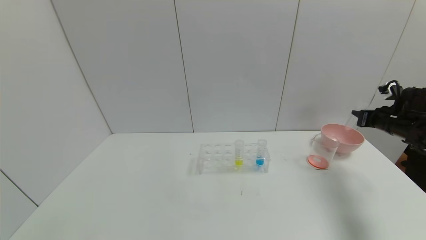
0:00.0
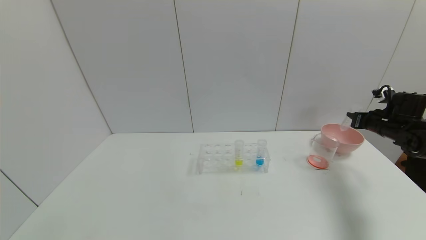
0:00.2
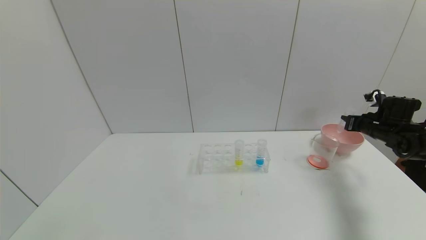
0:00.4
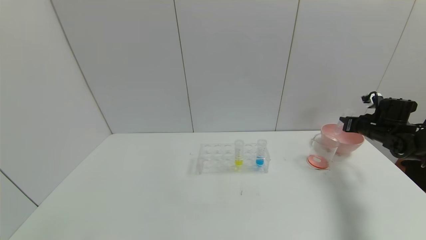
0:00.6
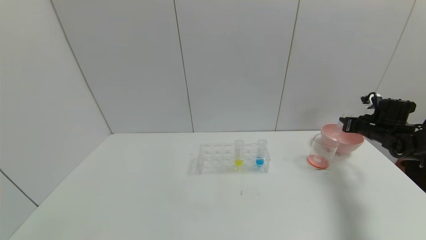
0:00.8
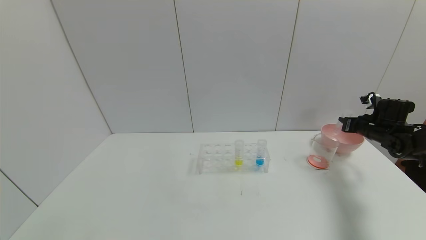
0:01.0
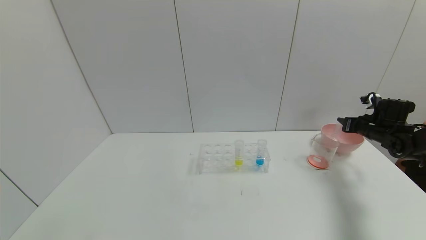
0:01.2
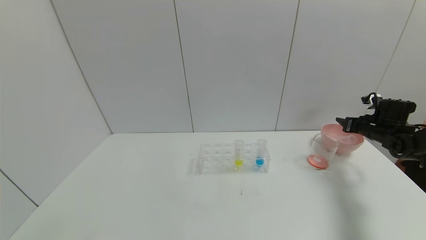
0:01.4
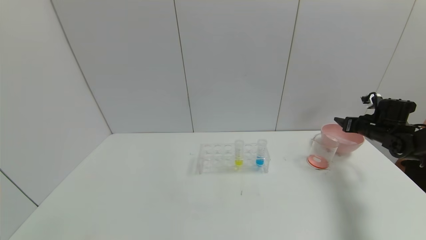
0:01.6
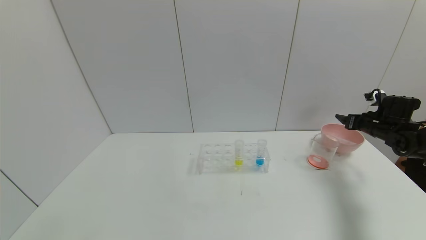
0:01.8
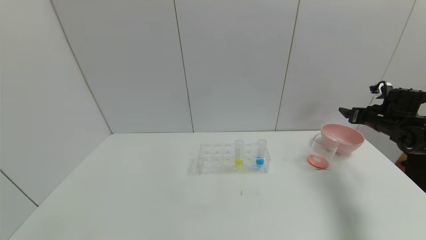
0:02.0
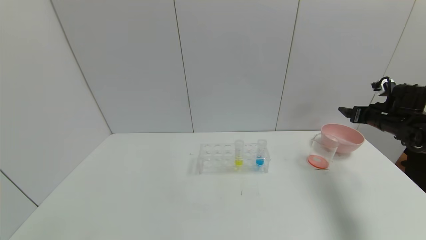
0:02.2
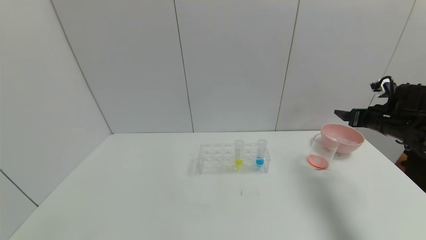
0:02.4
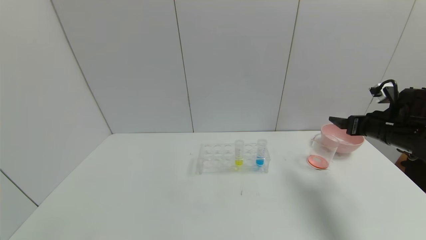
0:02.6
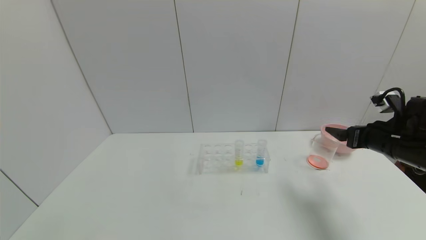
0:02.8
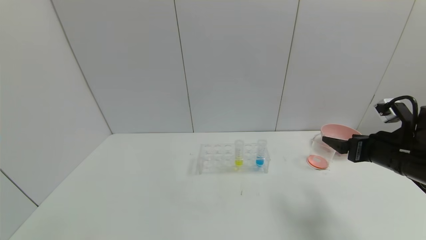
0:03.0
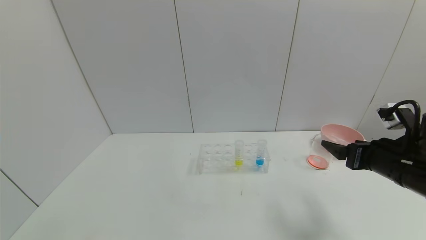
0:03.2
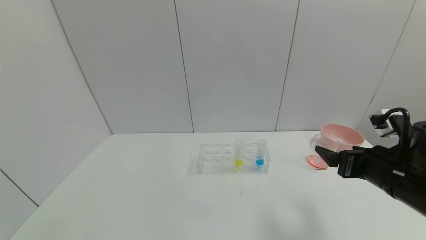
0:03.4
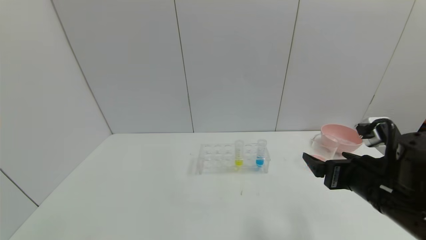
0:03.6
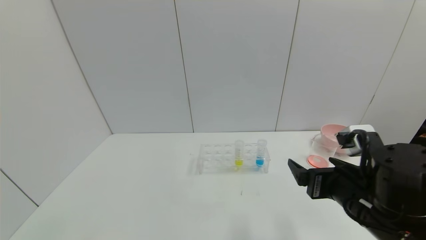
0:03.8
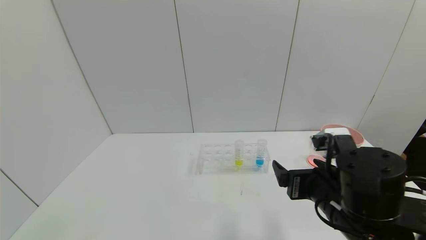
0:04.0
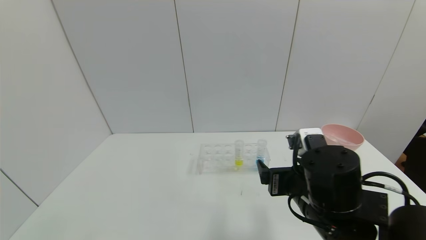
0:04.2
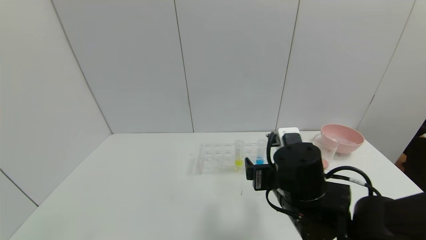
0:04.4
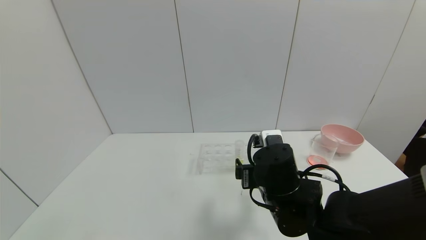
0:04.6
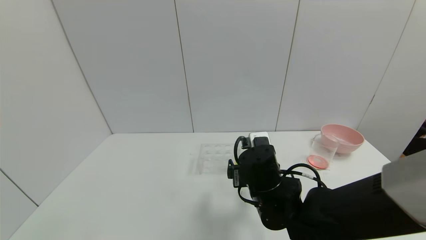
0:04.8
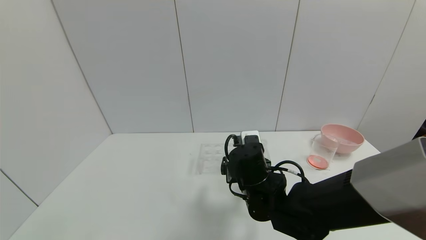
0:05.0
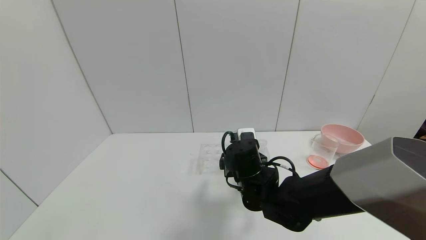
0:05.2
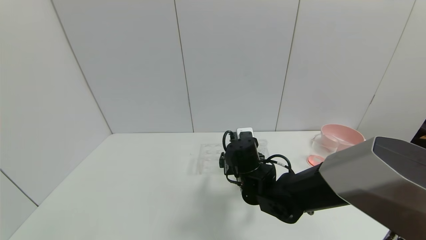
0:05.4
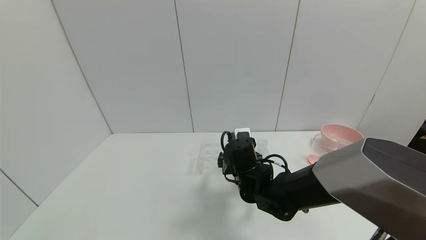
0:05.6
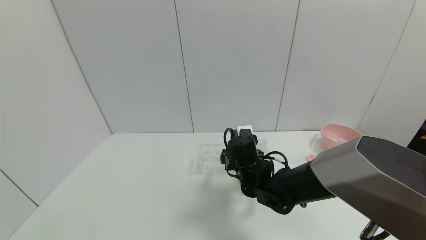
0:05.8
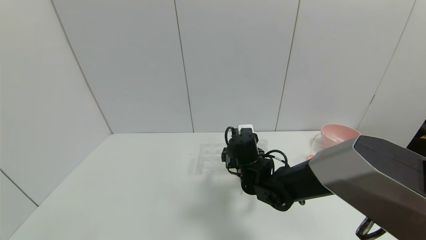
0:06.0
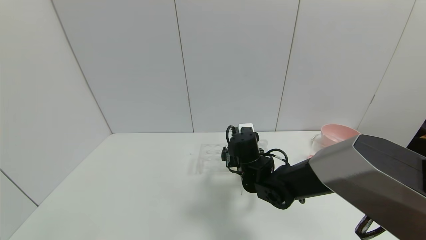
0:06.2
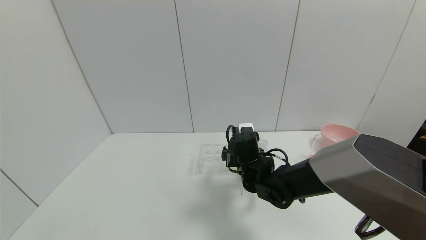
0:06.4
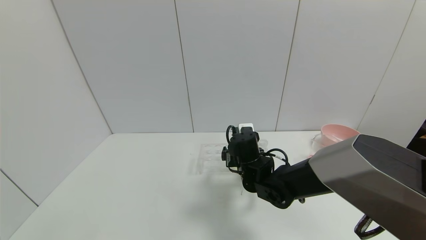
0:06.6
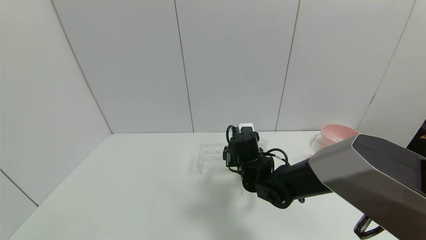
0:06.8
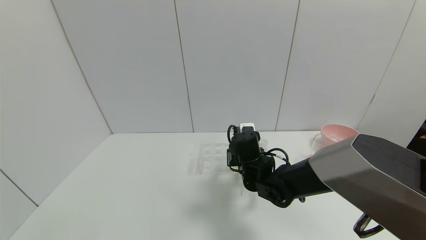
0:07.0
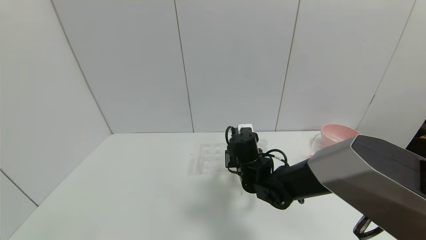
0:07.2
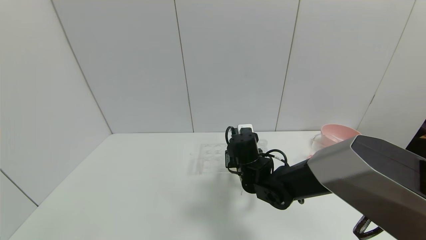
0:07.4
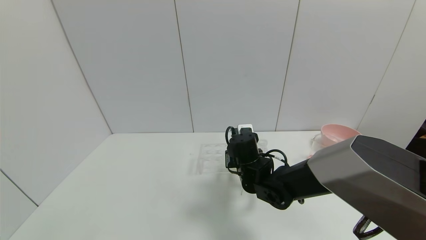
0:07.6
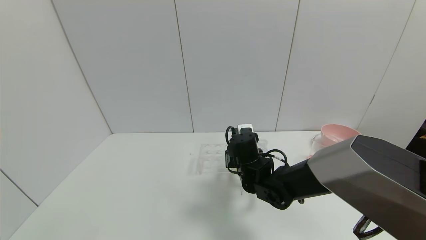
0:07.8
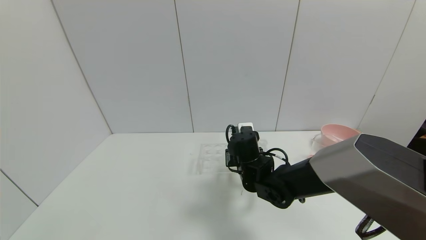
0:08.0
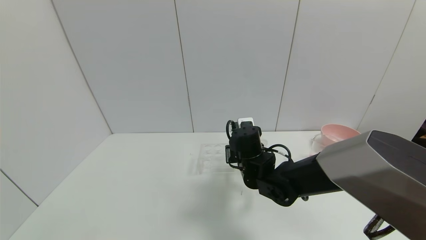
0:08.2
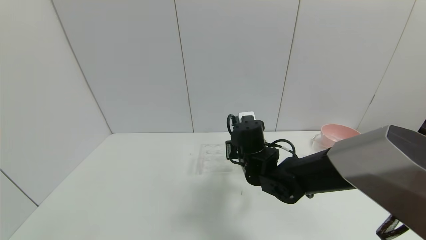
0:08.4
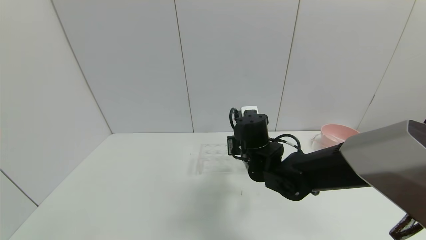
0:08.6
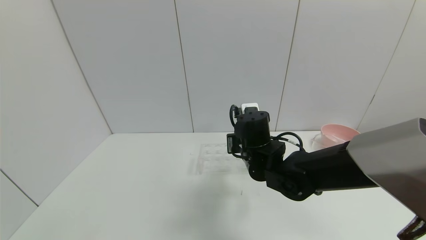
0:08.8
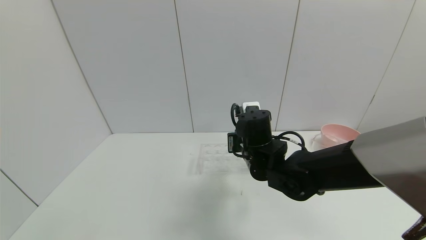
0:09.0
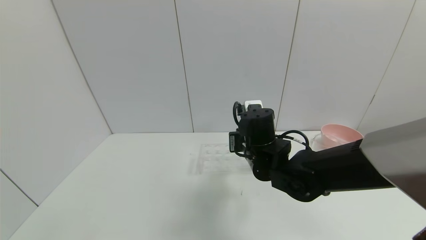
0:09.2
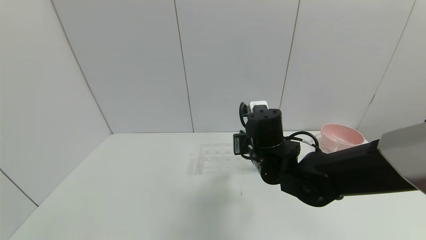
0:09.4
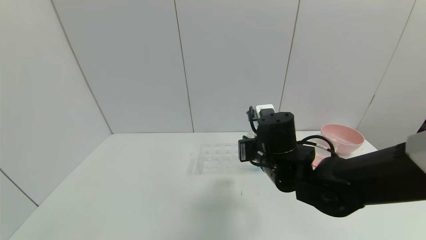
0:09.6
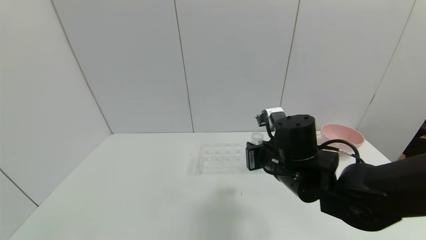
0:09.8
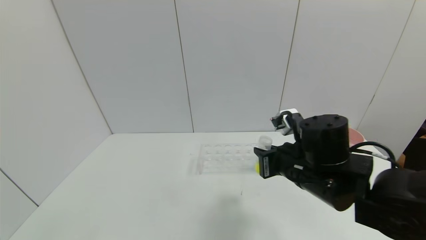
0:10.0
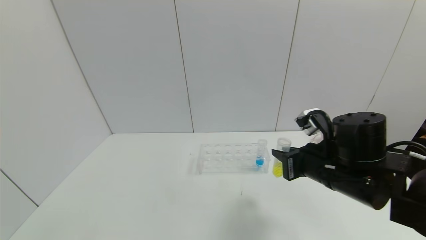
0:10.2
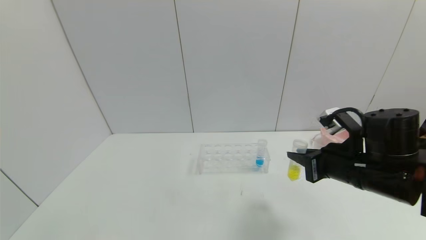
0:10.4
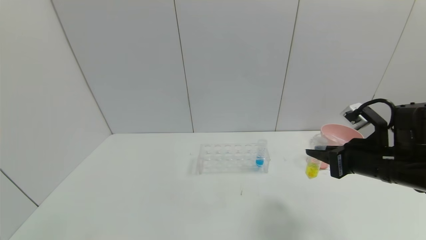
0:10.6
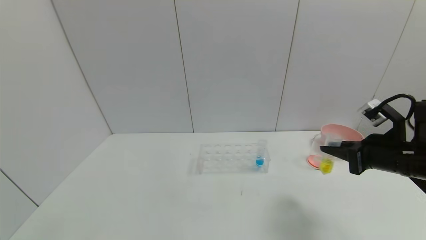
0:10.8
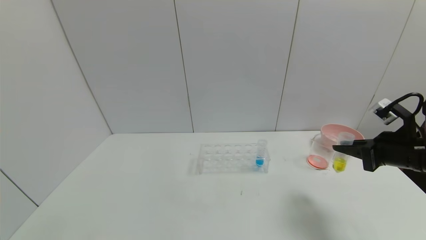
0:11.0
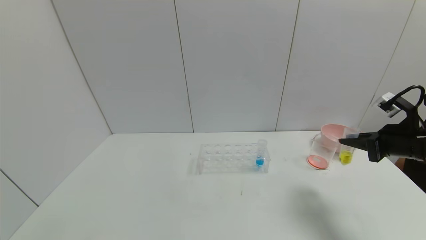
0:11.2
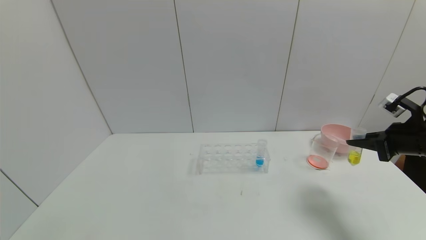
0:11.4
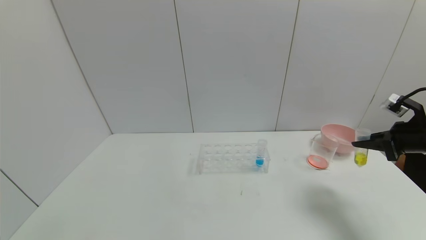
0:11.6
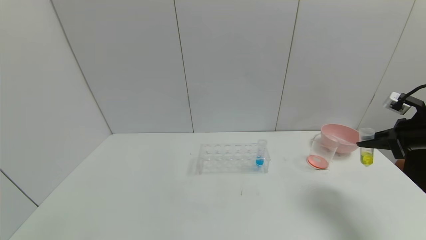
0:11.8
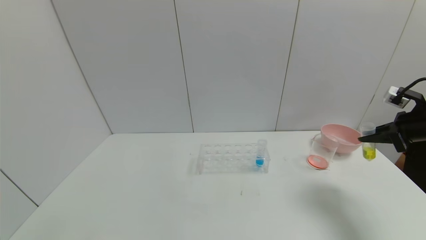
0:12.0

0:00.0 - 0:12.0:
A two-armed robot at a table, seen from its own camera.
Task of the whole recording: pick up the test tube with yellow pigment and the test tube with red pigment by grippers and pour them into the beaker.
Step, 0:01.8 - 0:07.2: Grasp the yellow reagent with the right gripper.
0:00.0 - 0:01.6: The right gripper moves about 5 cm, and opens.
0:01.6 - 0:03.0: The right gripper shifts about 25 cm backward and to the left.
0:03.0 - 0:04.4: The right gripper heads to the left, covering roughly 20 cm.
0:04.4 - 0:06.0: The right gripper is displaced forward, downward and to the left by roughly 15 cm.
0:06.0 - 0:07.6: The right gripper closes.
0:07.6 - 0:09.0: The right gripper heads upward, covering approximately 5 cm.
0:09.0 - 0:10.4: The right gripper is displaced to the right and backward by about 20 cm.
0:10.4 - 0:12.0: The right gripper heads to the right, covering about 20 cm.

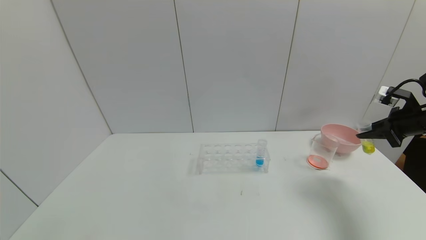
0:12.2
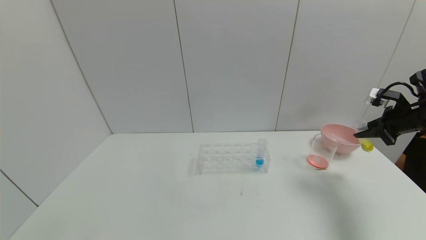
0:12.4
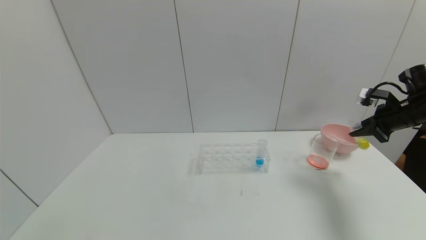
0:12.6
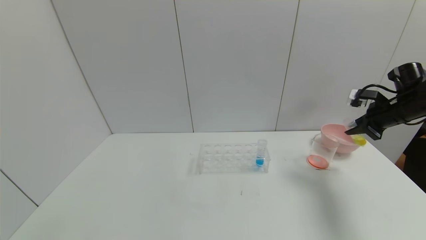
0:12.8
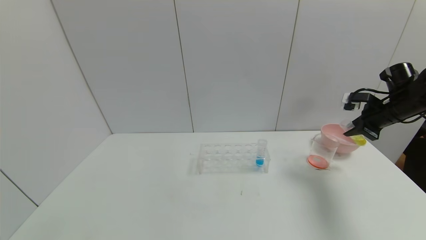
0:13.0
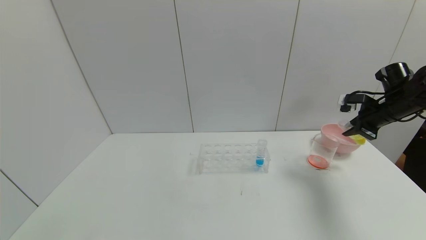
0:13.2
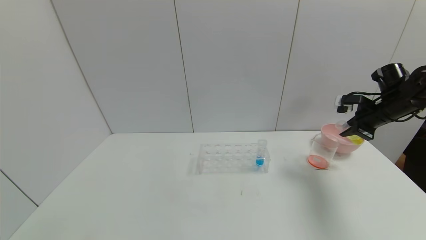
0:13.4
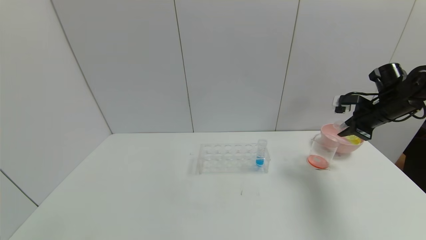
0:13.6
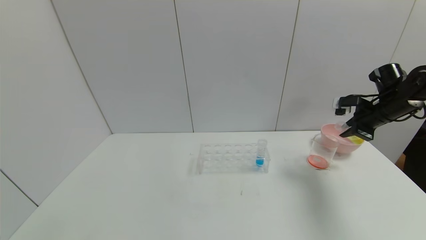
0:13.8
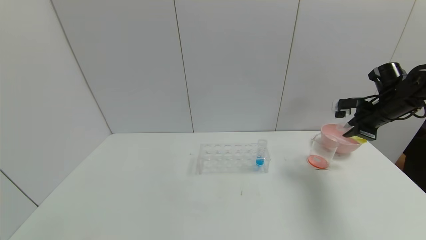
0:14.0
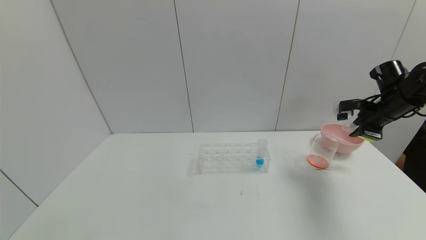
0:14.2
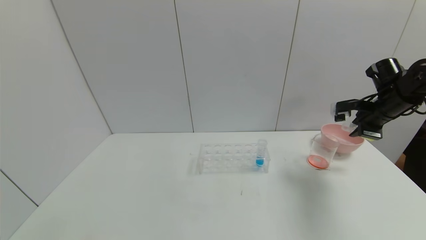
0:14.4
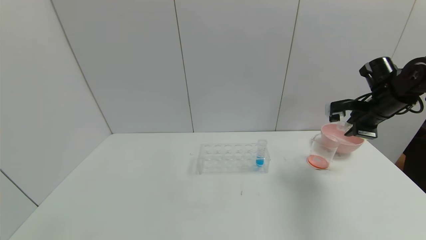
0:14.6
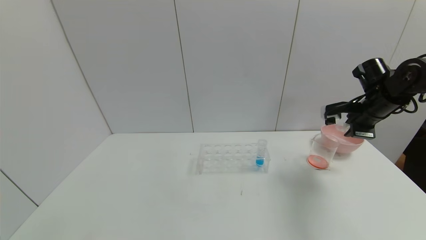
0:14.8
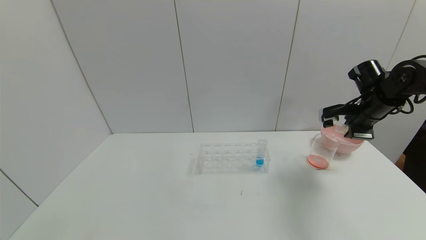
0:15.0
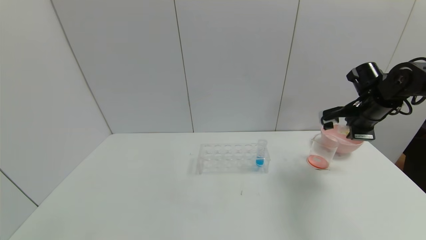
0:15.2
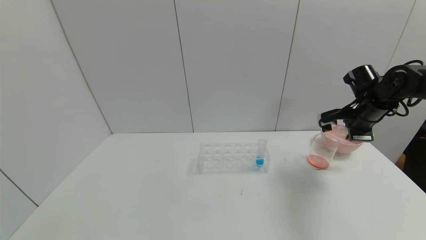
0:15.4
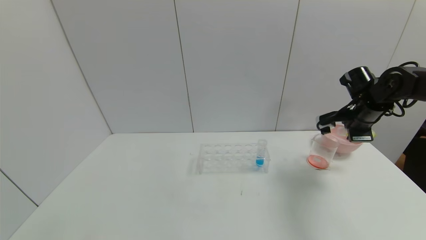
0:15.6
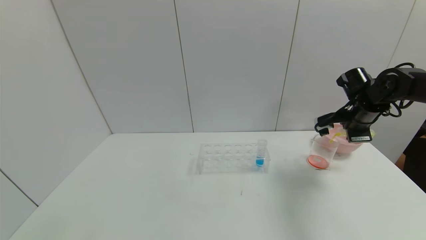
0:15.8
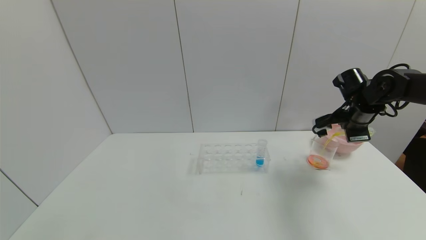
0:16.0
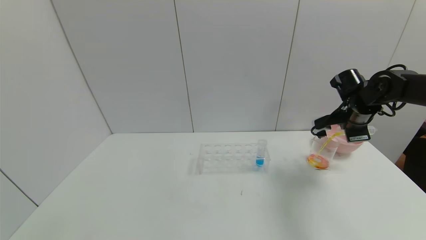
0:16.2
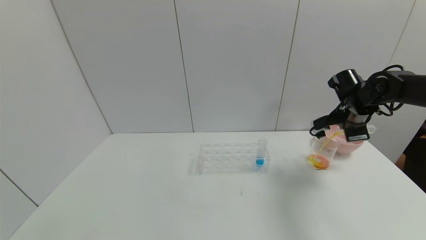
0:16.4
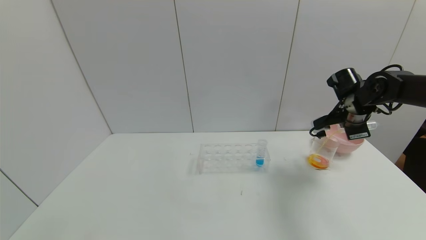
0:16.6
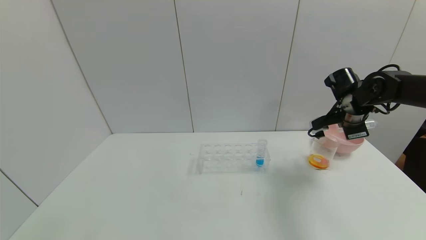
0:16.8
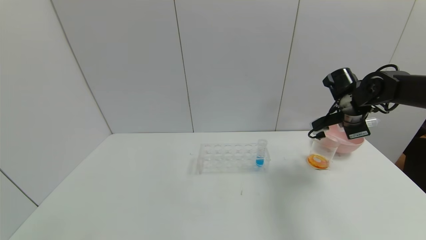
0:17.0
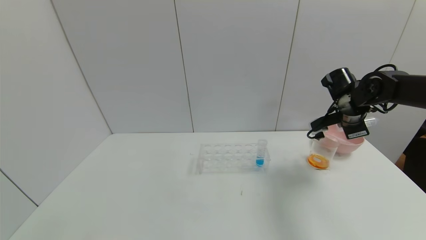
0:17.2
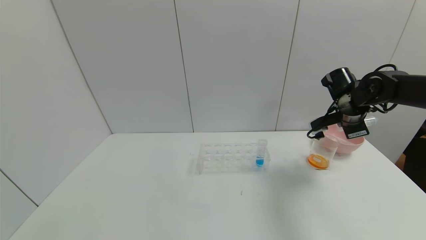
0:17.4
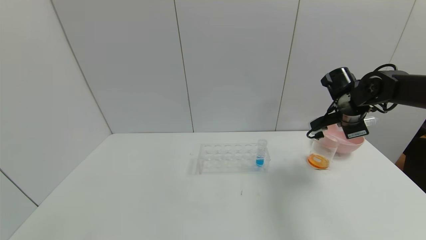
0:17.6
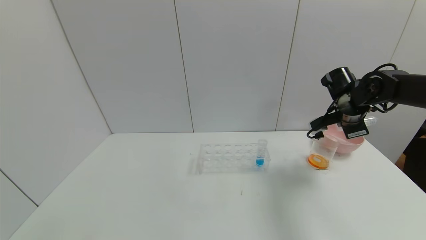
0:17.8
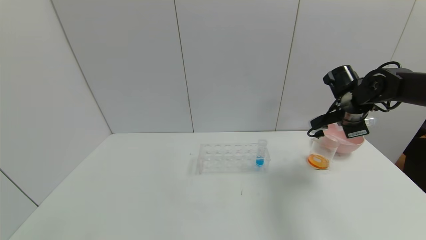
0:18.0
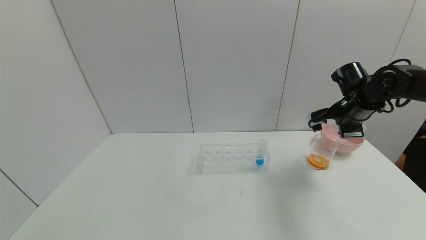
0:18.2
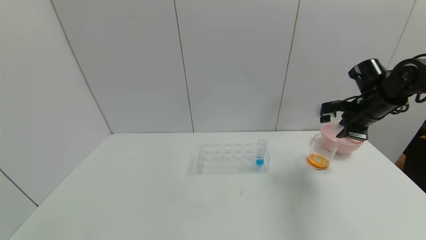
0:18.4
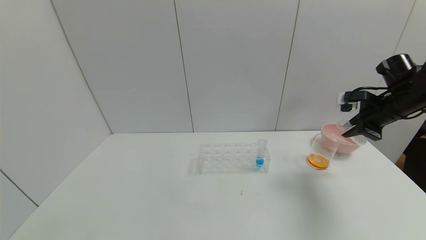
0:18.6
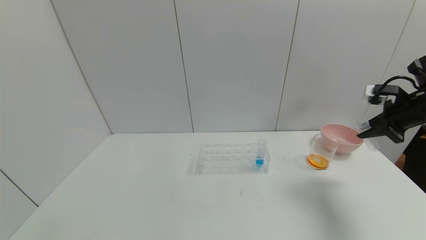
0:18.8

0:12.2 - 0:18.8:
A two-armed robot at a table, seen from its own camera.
Task of the whole recording: pick up the test tube with yellow pigment and the test tube with red pigment by grippers and pour them into the beaker.
Step, 0:12.2 - 0:17.2: Pour the yellow reagent into the graduated cylinder with the right gripper.
0:12.2 - 0:13.8: The right gripper travels forward by some 5 cm.
0:17.2 - 0:18.8: The right gripper shifts roughly 15 cm to the right and backward.
